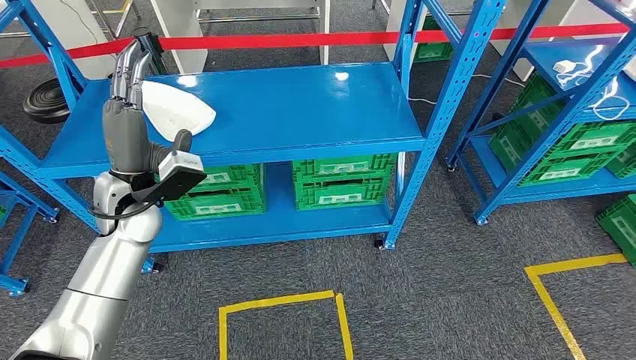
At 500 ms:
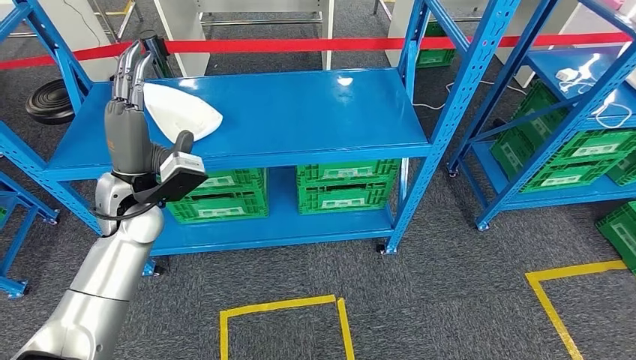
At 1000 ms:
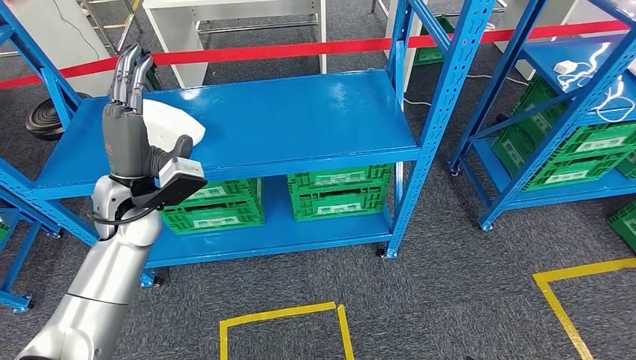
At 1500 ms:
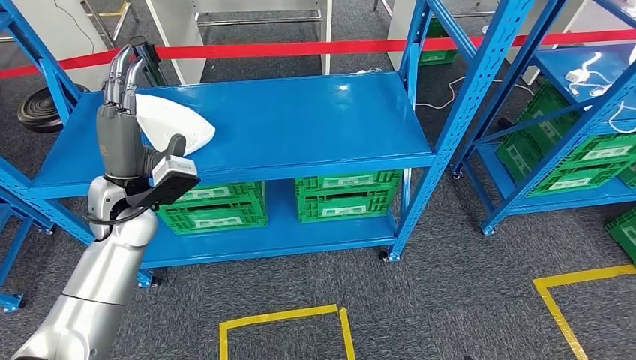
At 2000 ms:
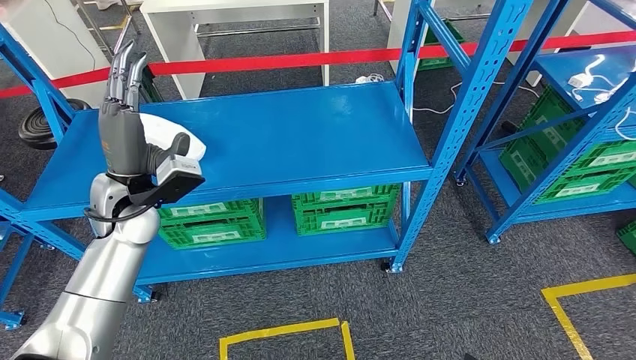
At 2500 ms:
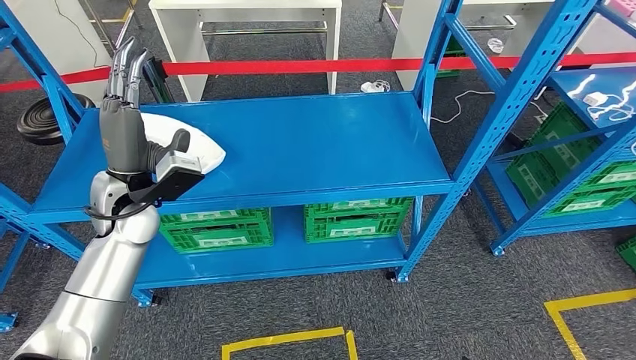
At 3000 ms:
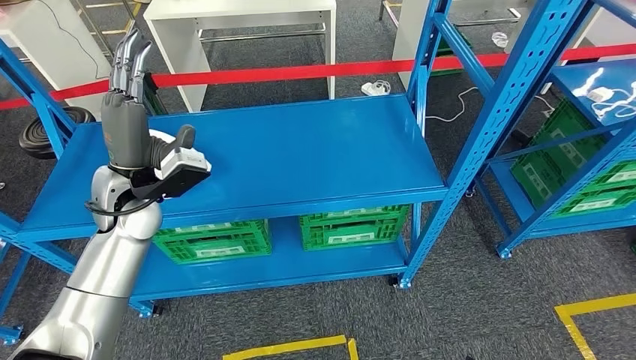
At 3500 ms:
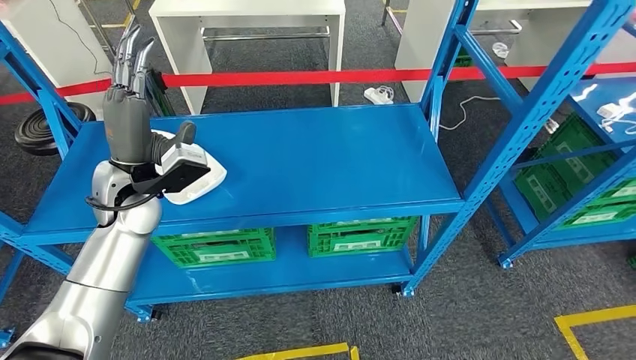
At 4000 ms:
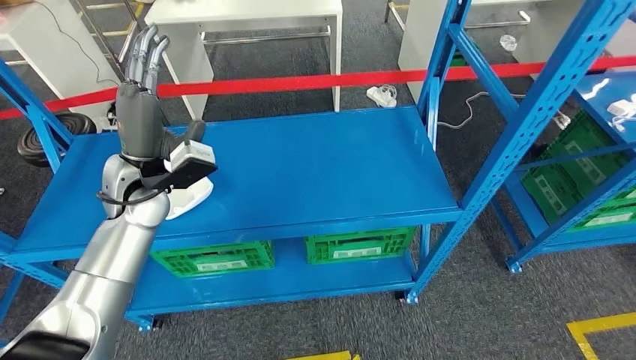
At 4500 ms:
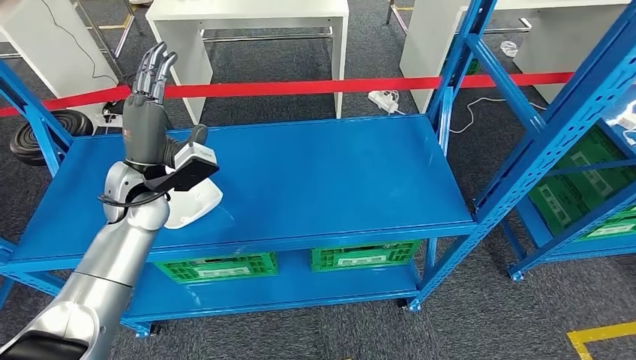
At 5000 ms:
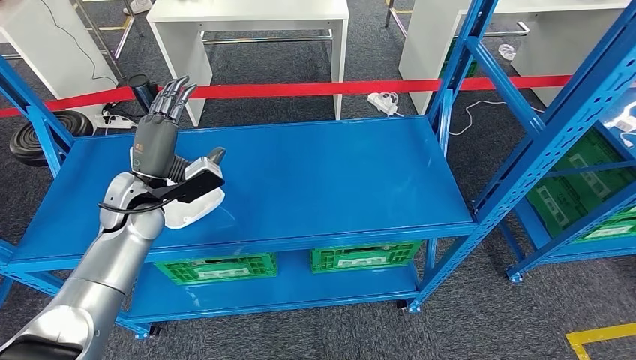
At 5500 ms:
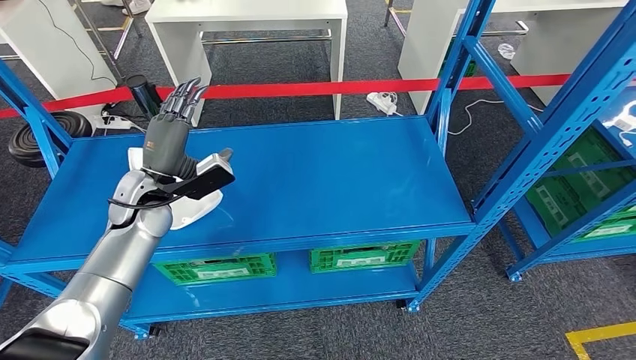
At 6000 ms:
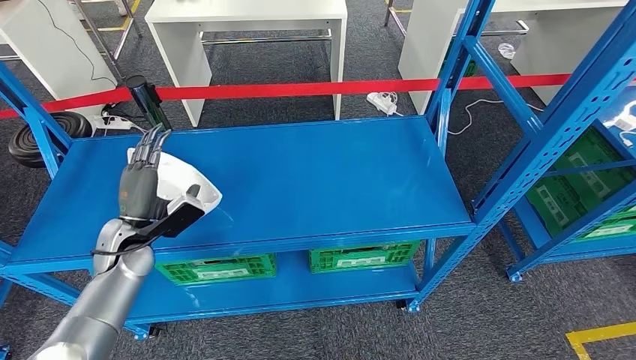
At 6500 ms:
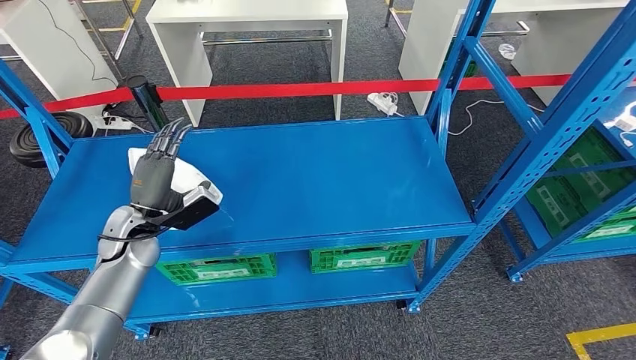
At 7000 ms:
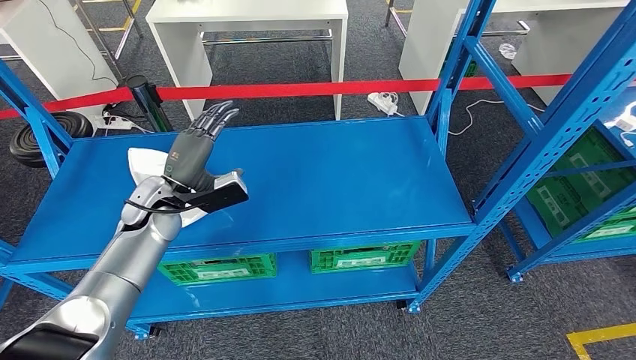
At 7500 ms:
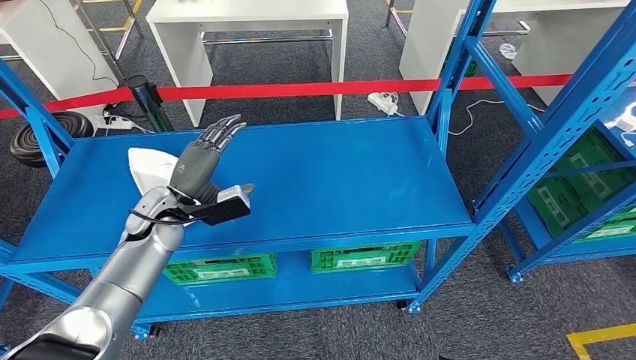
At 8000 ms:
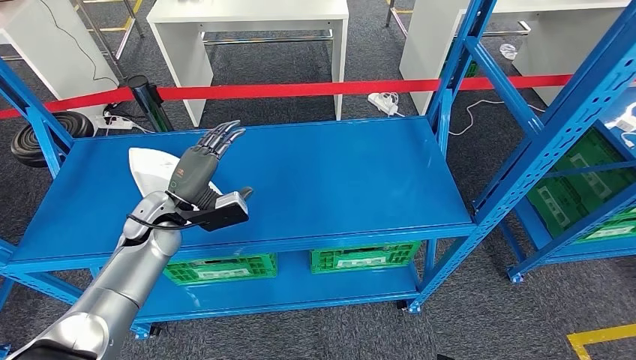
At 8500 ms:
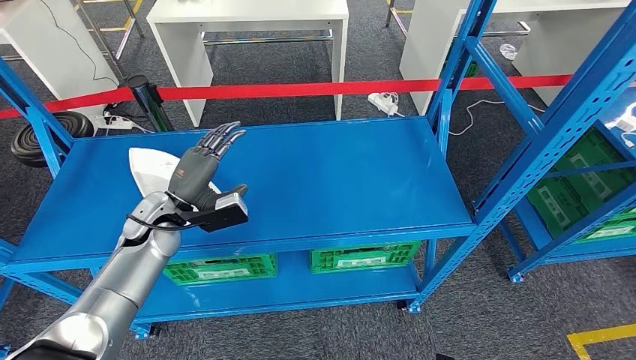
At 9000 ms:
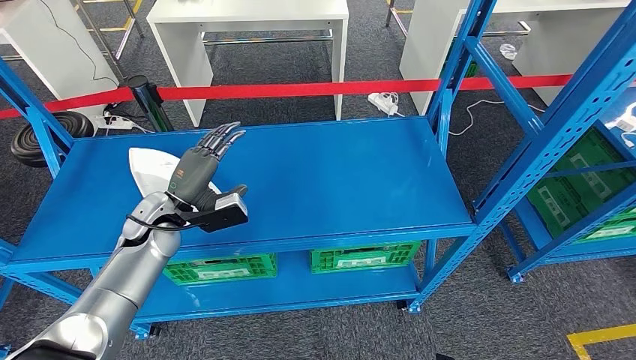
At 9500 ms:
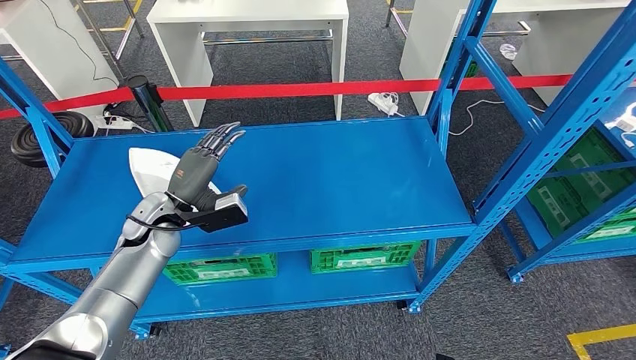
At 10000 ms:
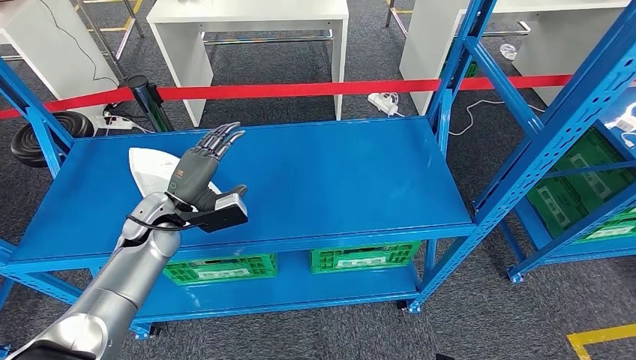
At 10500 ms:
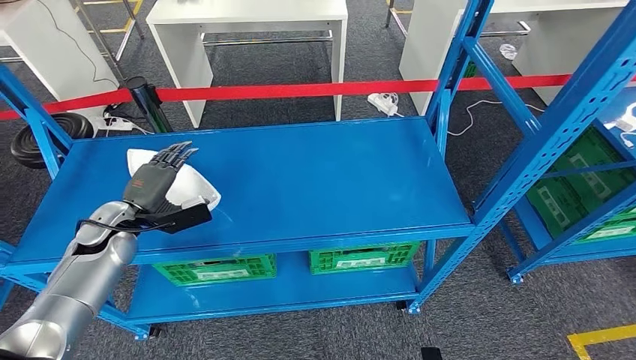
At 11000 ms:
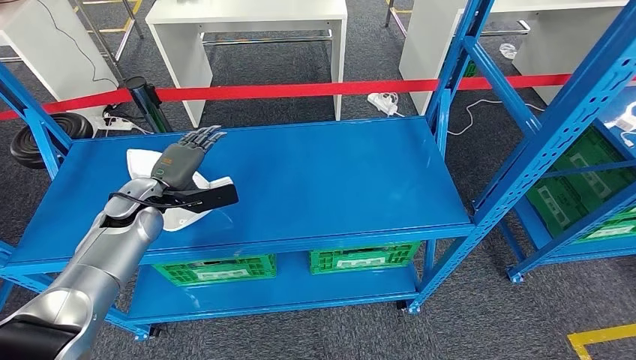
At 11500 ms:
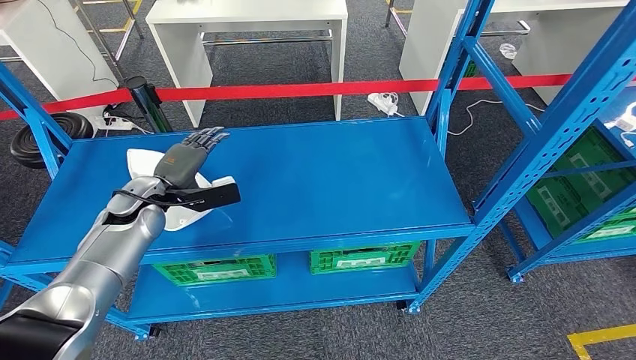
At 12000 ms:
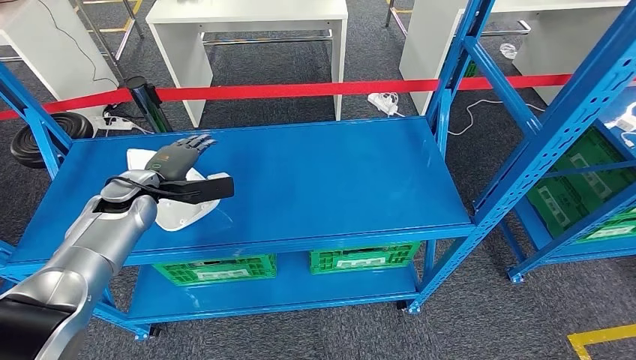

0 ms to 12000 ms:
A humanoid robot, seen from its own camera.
6000 ms to 8000 ms: The left hand travels to the right by about 5 cm.
8000 ms to 10000 ms: The two hands keep their place.
10000 ms to 12000 ms: The left hand ends up about 5 cm from where it was.

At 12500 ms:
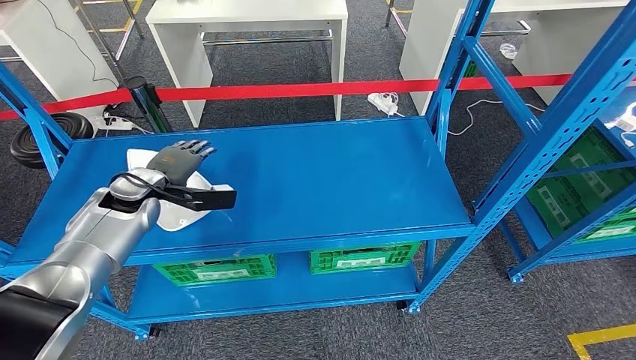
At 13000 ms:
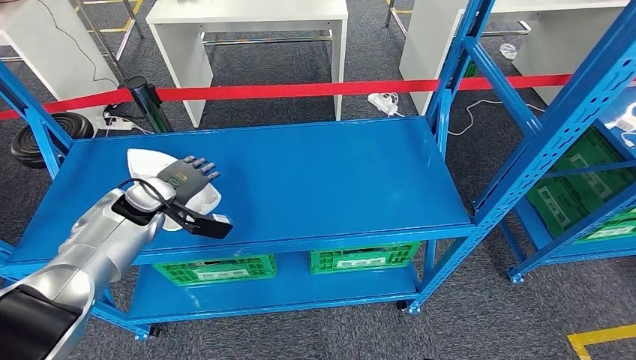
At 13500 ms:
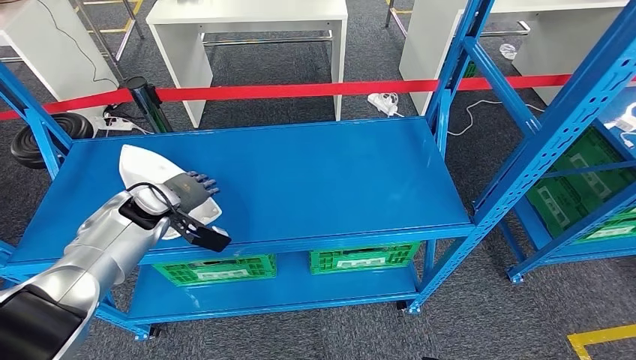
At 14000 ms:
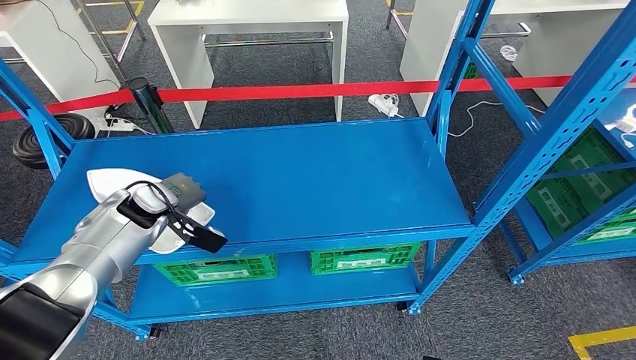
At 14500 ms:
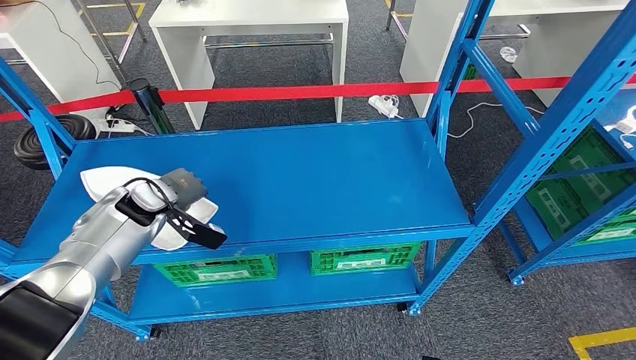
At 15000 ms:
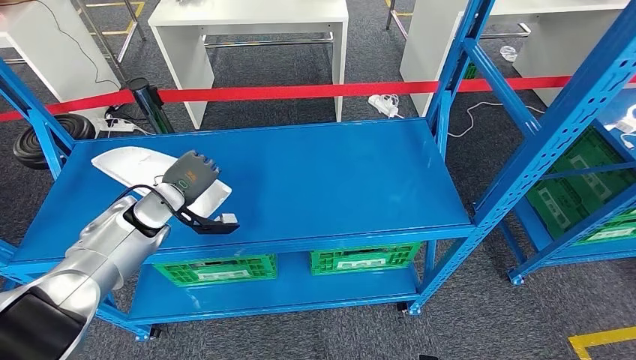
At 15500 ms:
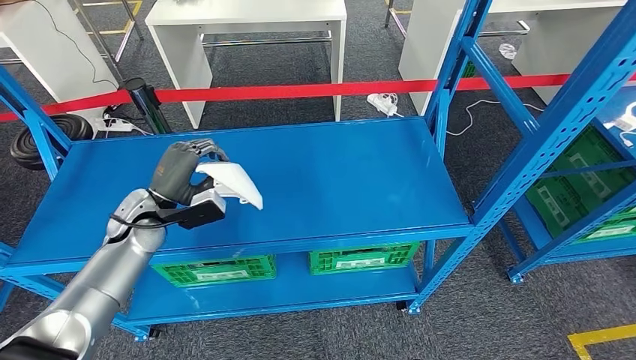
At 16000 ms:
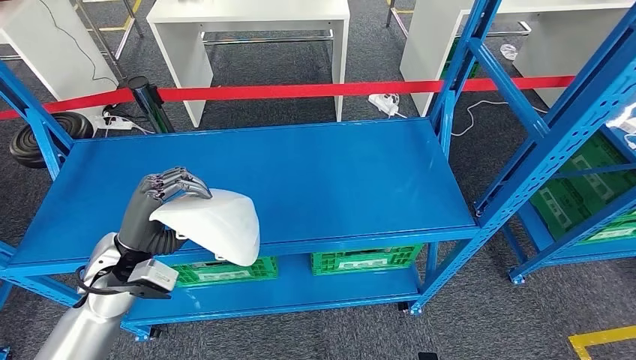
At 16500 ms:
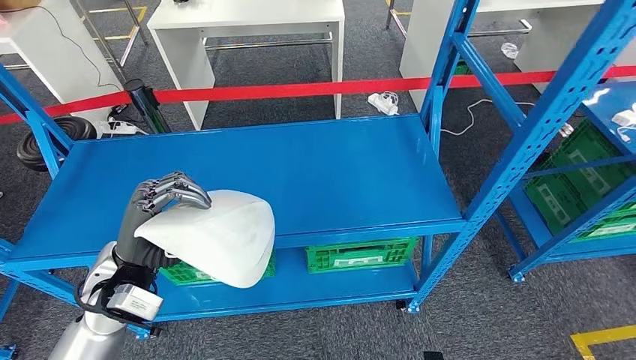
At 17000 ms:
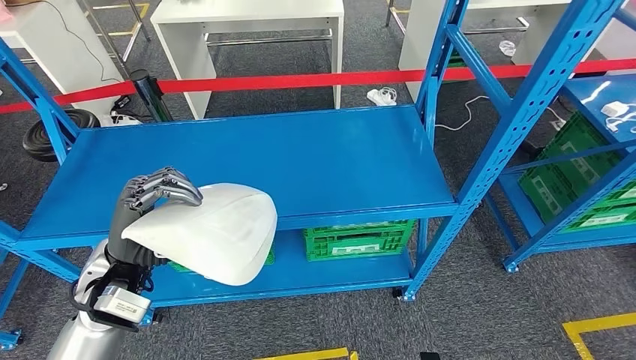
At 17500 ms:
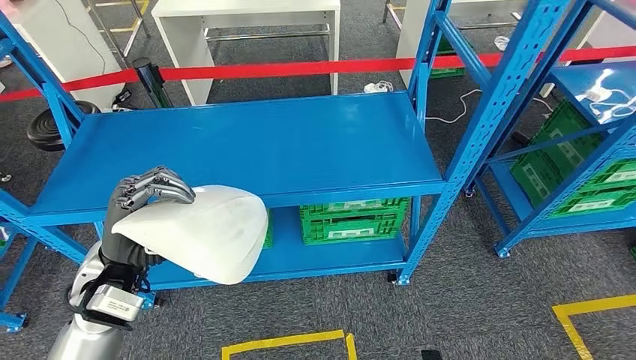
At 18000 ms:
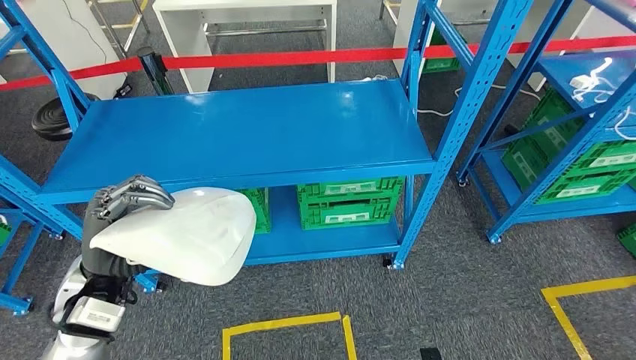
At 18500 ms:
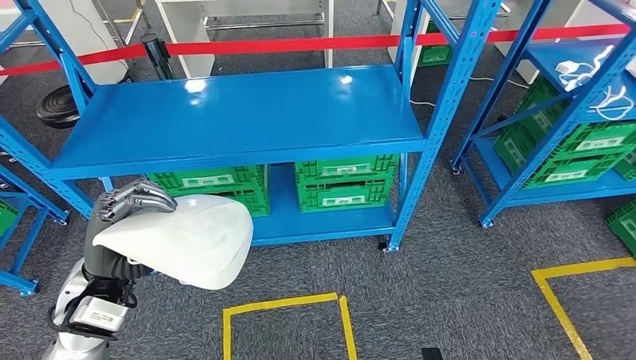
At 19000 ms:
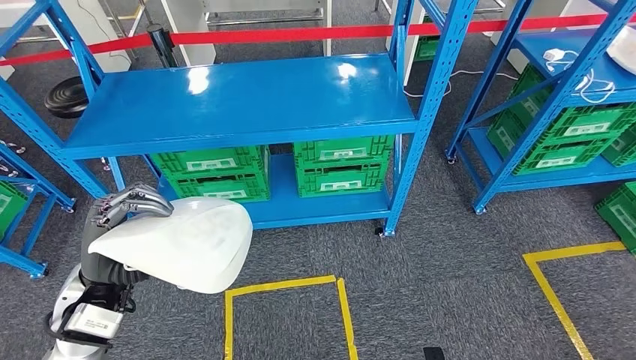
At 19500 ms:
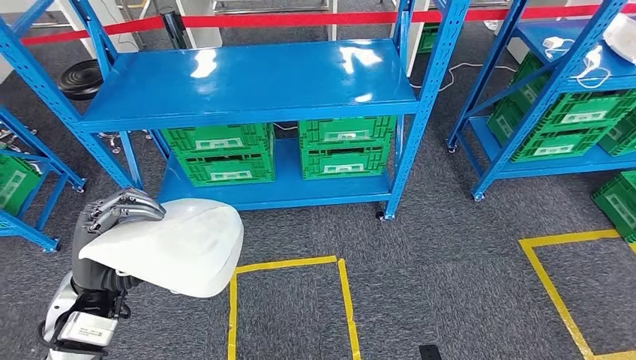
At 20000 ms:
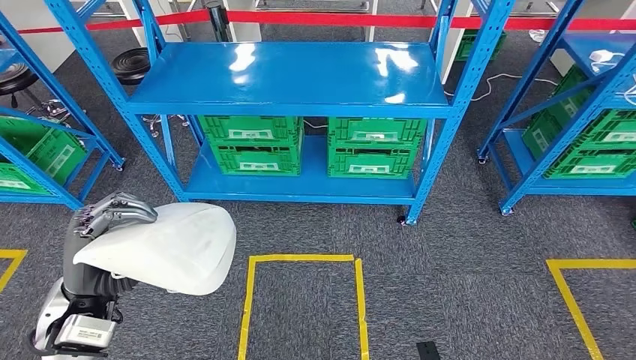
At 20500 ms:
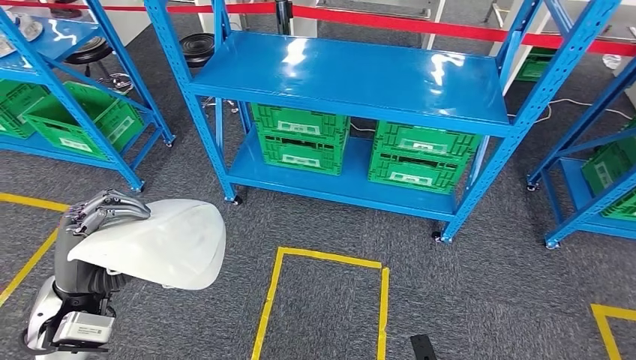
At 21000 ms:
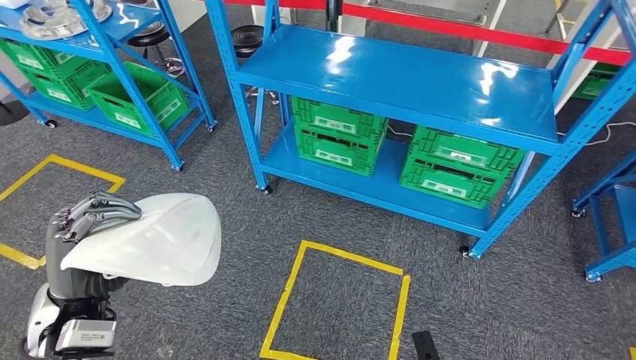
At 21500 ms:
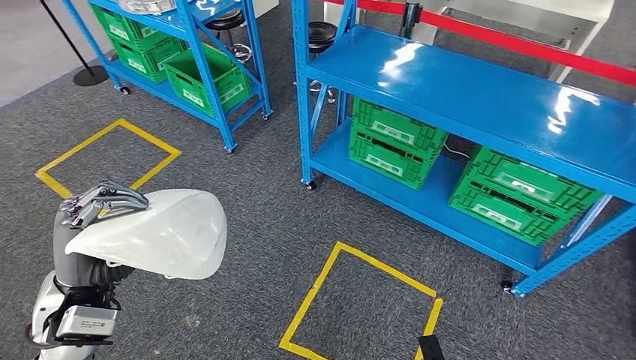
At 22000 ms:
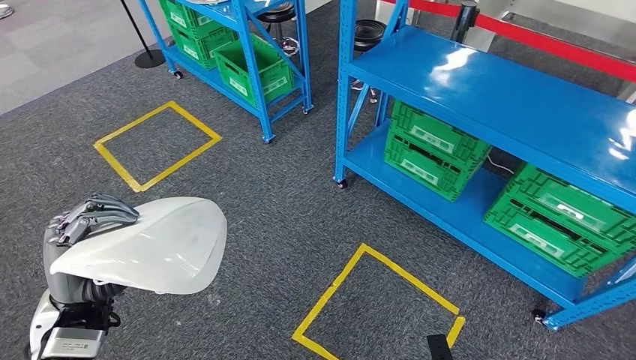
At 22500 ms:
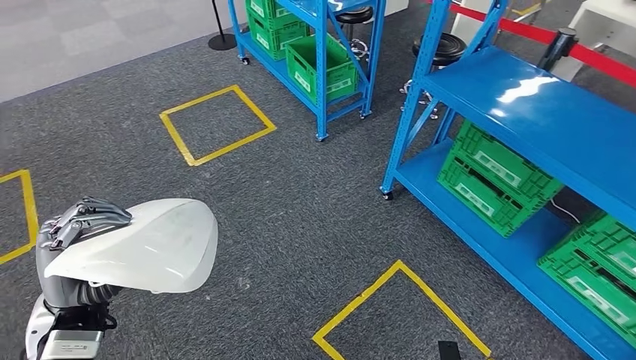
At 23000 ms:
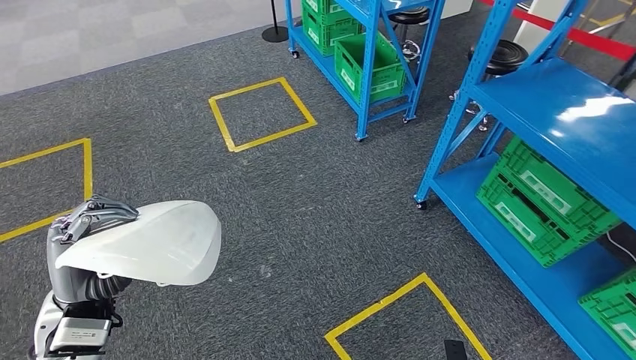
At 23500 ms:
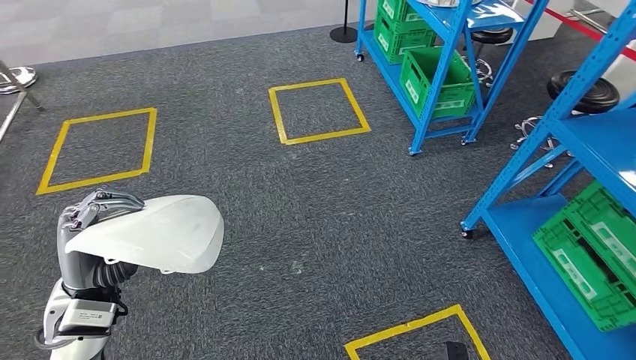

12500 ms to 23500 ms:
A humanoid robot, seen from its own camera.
Step, 12500 ms to 16500 ms: Take small components from the rack.
